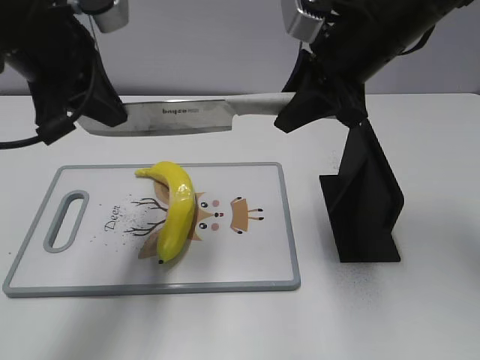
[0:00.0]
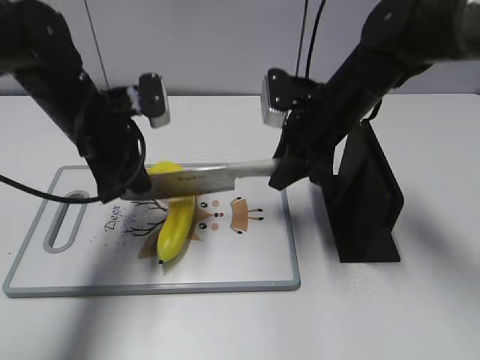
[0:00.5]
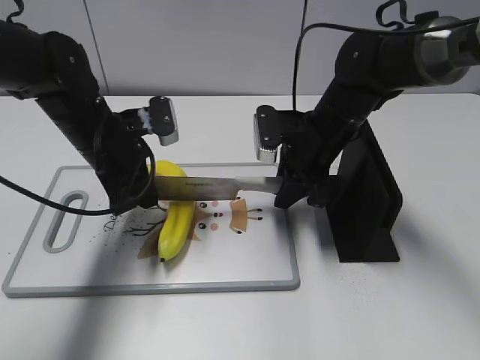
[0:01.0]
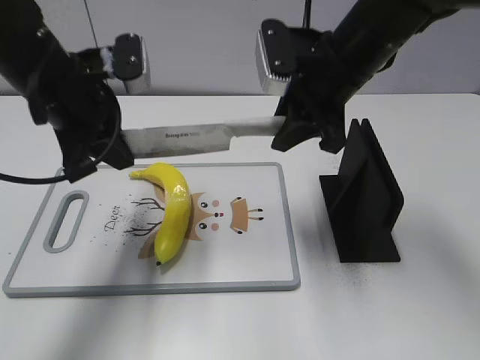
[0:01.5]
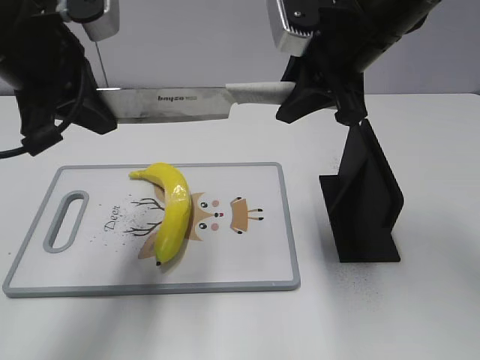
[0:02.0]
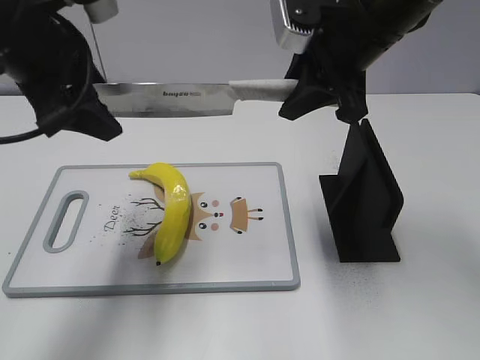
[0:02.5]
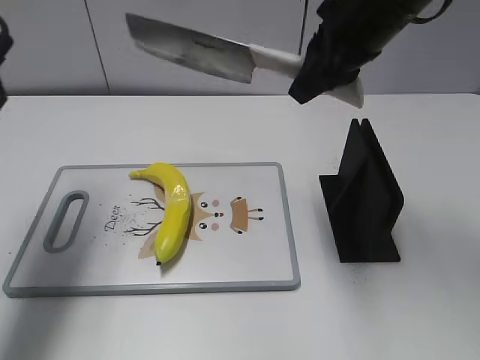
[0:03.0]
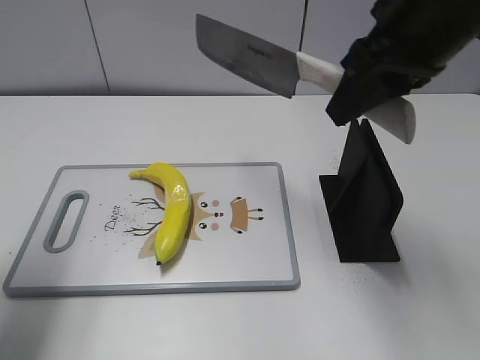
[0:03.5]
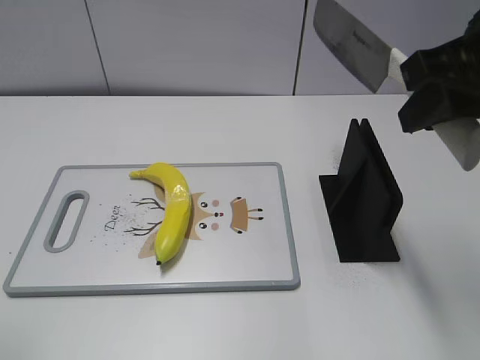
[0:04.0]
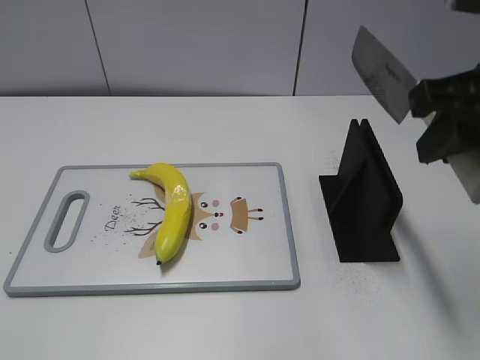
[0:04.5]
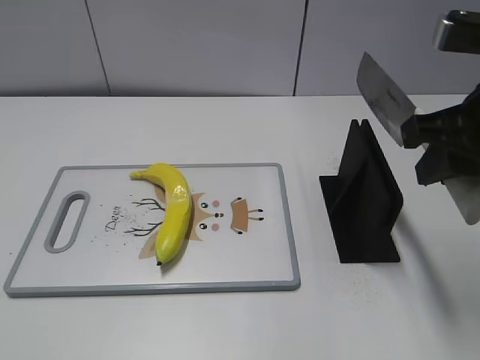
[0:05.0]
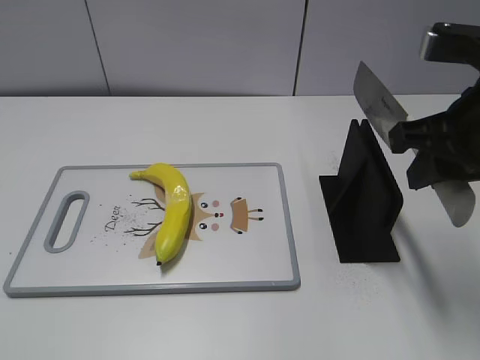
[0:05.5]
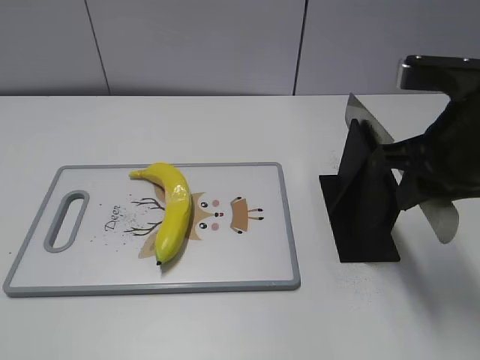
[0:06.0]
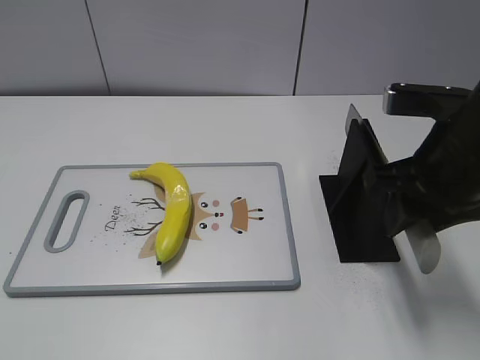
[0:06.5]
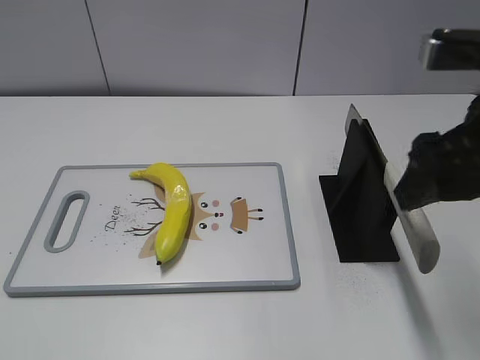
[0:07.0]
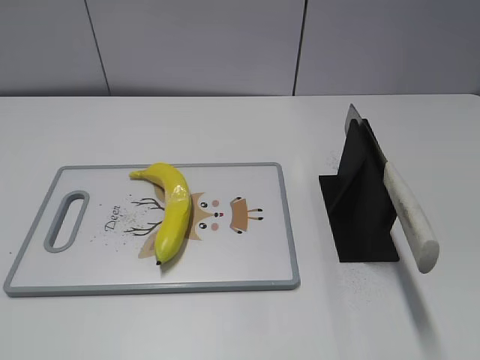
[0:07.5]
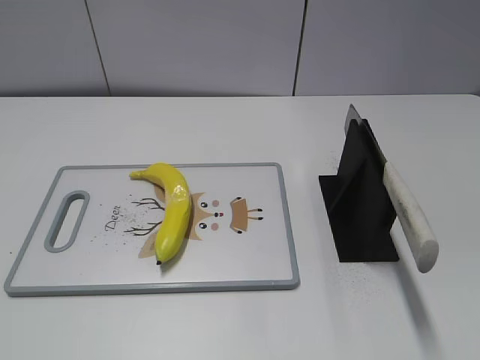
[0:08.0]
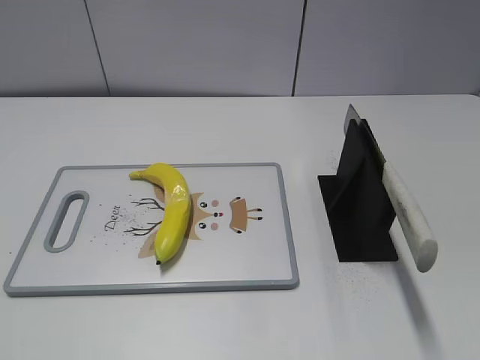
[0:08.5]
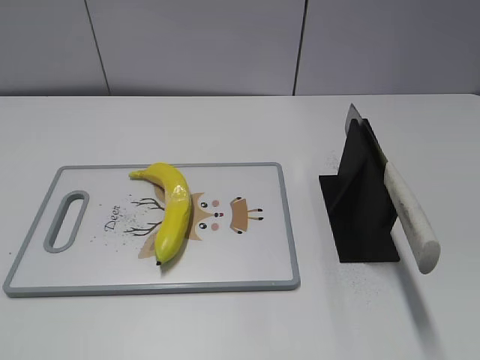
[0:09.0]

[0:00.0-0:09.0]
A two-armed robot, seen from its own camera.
Task of the whole recording: cut plastic banana.
Step, 0:02.0 to 0:03.0: Cut the banana with your right hand.
Step, 0:03.5 to 0:04.5: Lift the knife with your right hand.
Step, 0:05.0 to 0:09.0: Place the knife on the storage rack with your right hand.
0:00.0 to 0:02.0: The right gripper reaches about 15 cm downward, then returns. The left gripper moves about 15 cm downward and comes back.
0:02.0 to 0:04.5: The left gripper shifts roughly 30 cm backward and to the left, and opens up; the right gripper heads backward and to the right, covering about 15 cm.
0:04.5 to 0:07.0: The right gripper opens.
0:07.0 to 0:09.0: The right gripper travels backward by roughly 20 cm.
